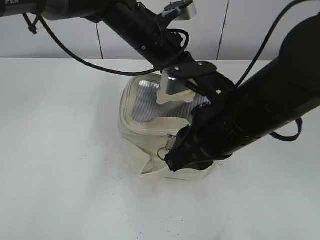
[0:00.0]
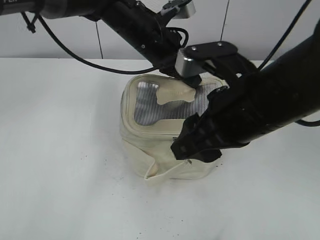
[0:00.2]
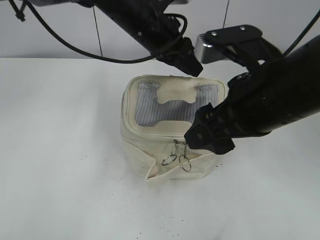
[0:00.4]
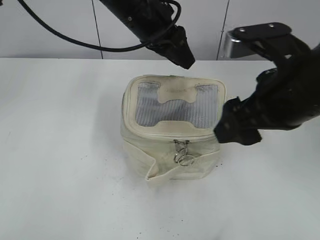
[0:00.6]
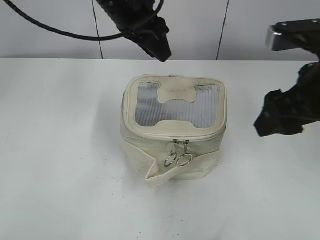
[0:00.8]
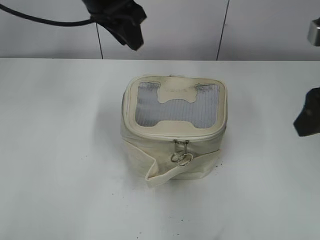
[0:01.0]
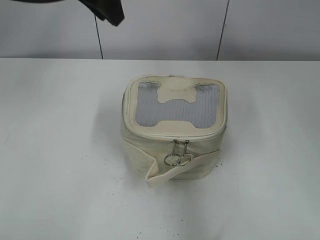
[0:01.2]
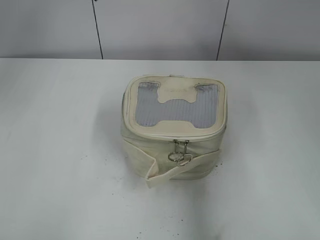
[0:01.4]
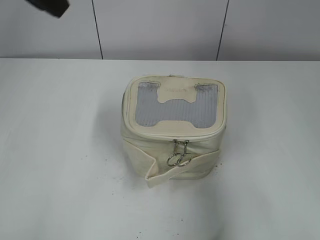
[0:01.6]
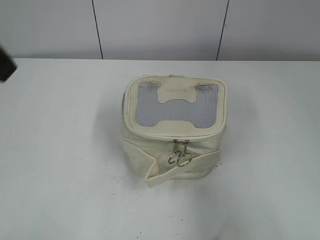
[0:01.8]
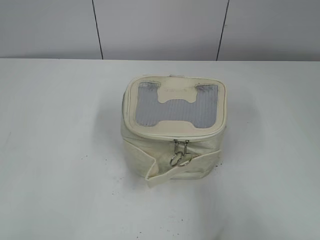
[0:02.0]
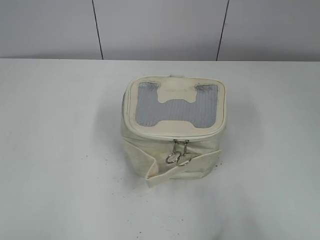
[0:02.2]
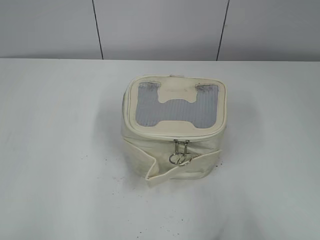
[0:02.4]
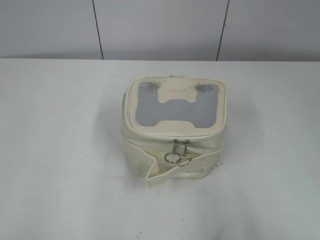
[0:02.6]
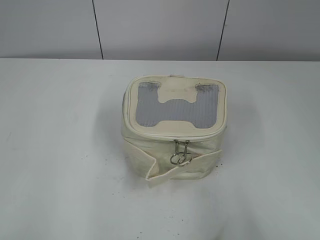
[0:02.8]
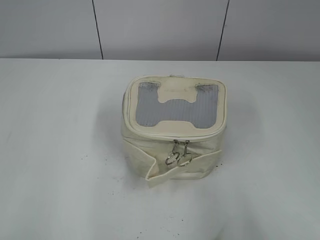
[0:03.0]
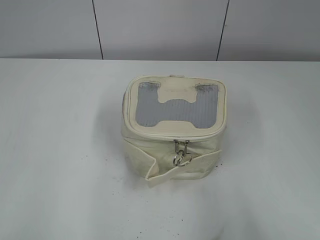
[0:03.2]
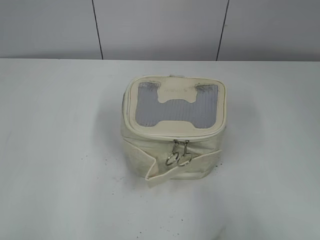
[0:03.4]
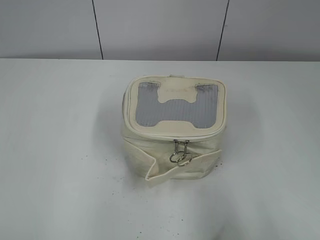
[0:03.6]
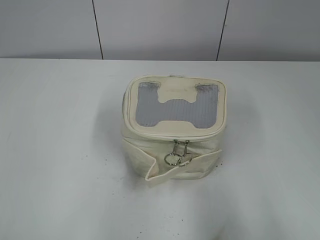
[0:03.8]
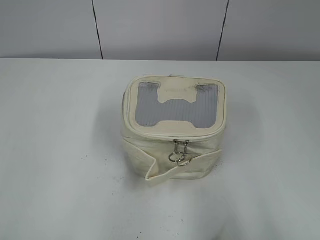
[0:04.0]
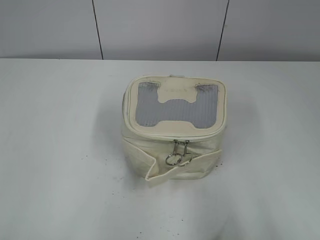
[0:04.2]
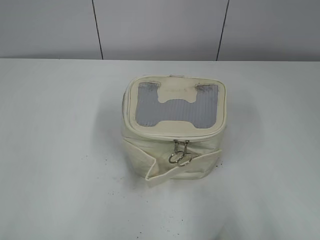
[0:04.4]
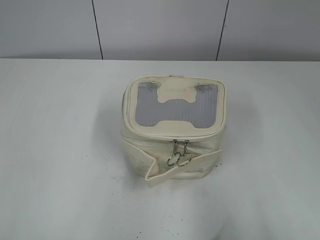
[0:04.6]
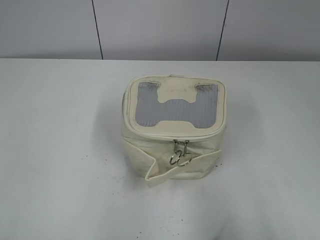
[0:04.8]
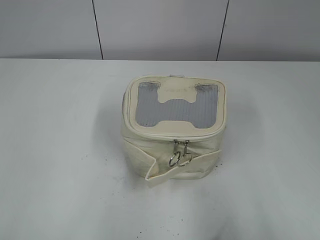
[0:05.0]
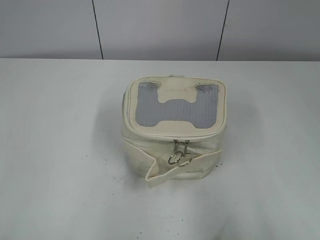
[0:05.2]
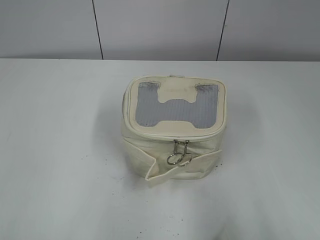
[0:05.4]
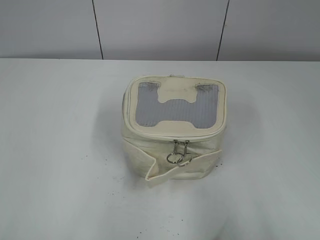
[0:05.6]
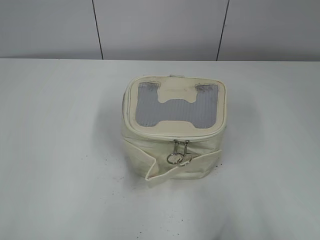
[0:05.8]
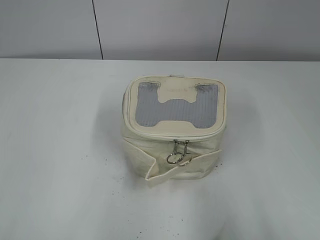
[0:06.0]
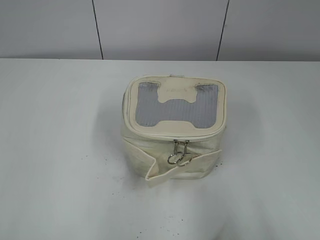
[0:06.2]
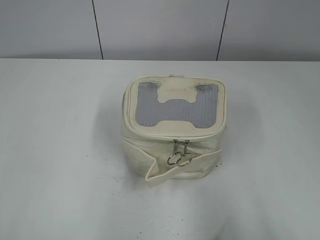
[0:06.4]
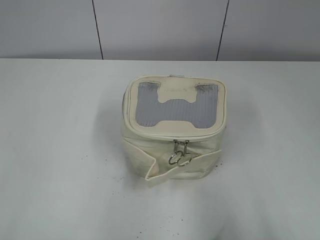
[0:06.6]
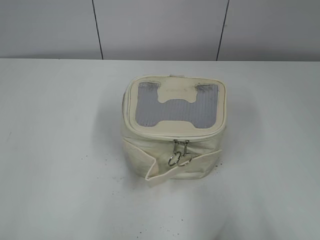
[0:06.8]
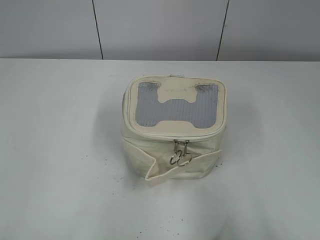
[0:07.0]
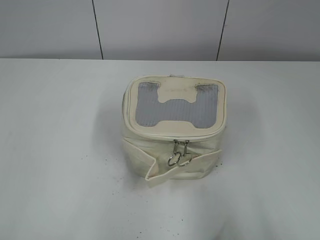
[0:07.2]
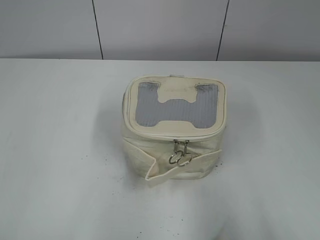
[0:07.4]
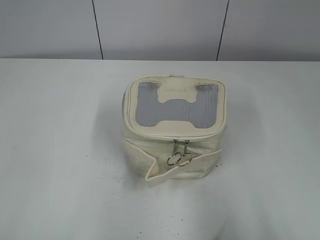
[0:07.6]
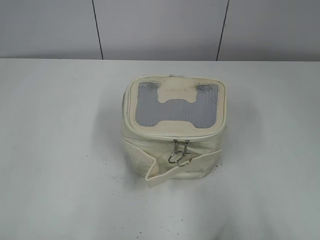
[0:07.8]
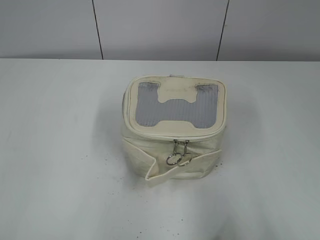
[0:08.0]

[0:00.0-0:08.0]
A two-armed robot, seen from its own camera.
Step, 0:00.4 to 0:00.8: Hold the bag with your left hand.
0:00.0 to 0:01.6: The left gripper shifts approximately 25 cm upward, to the left and backward, and opens, while the right gripper goes approximately 25 cm to the right, backward and upward, and opens up.
0:01.6 to 0:03.2: The left gripper travels backward, to the left and downward by roughly 30 cm, while the right gripper is displaced backward by roughly 10 cm.
0:06.4 to 0:08.0: The two grippers keep their place.

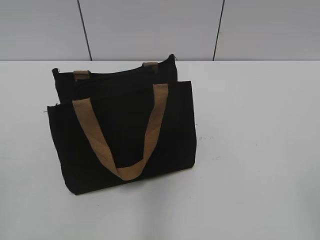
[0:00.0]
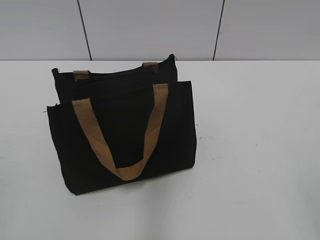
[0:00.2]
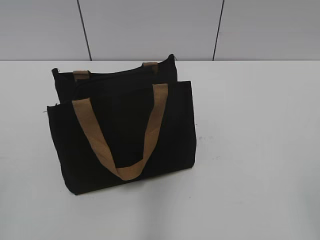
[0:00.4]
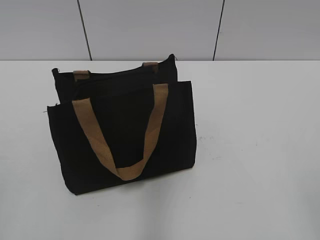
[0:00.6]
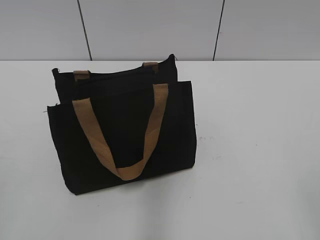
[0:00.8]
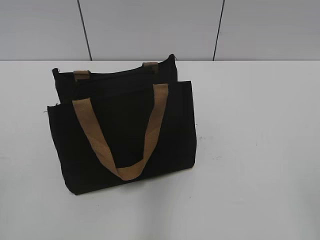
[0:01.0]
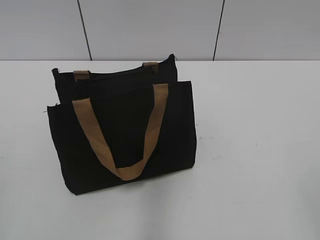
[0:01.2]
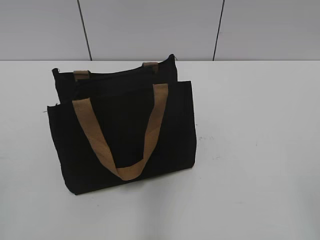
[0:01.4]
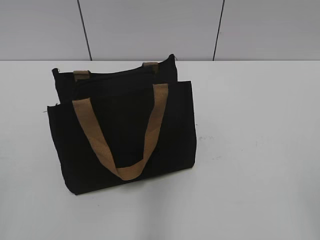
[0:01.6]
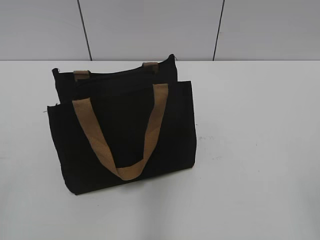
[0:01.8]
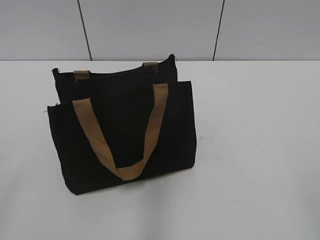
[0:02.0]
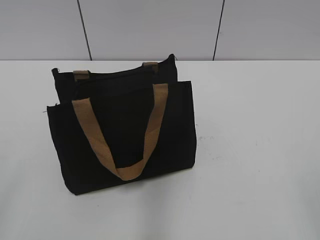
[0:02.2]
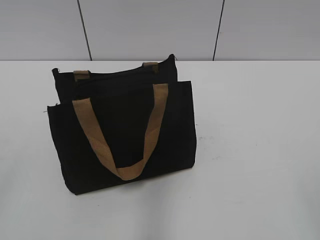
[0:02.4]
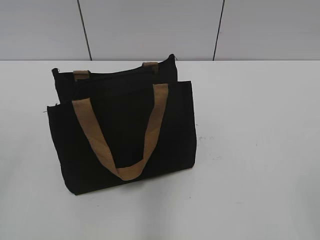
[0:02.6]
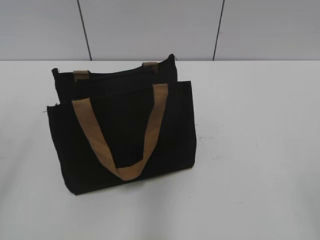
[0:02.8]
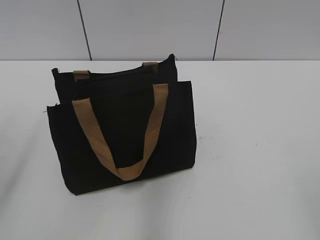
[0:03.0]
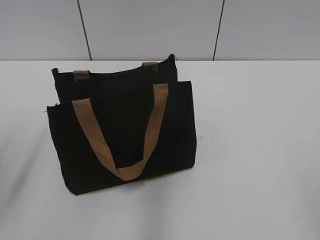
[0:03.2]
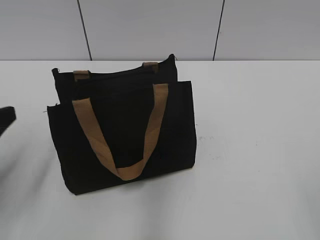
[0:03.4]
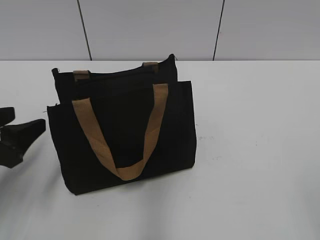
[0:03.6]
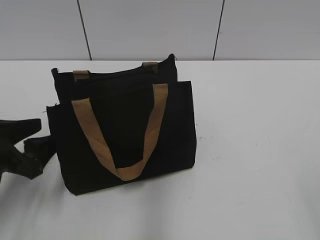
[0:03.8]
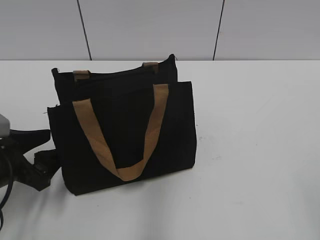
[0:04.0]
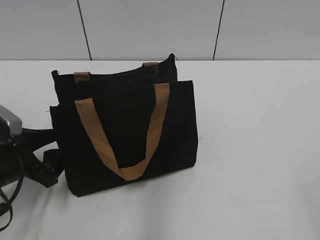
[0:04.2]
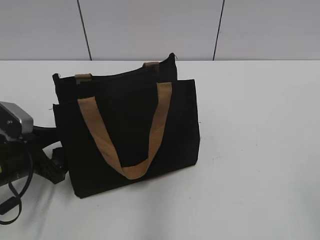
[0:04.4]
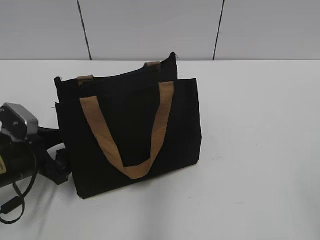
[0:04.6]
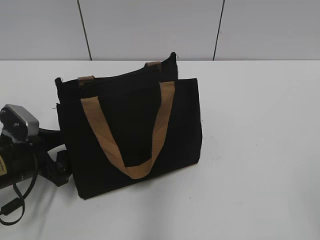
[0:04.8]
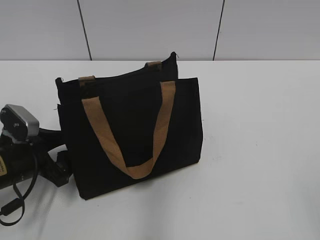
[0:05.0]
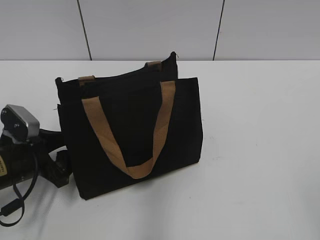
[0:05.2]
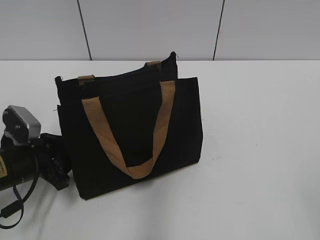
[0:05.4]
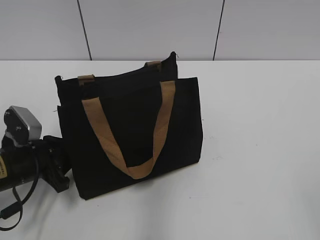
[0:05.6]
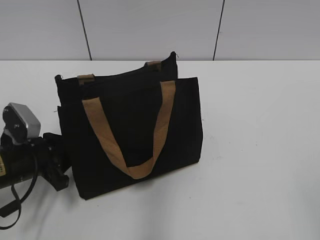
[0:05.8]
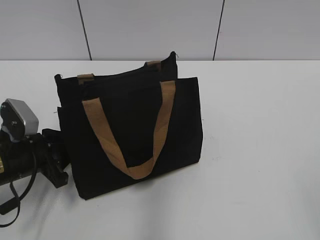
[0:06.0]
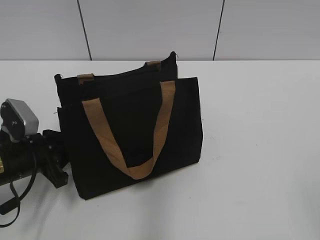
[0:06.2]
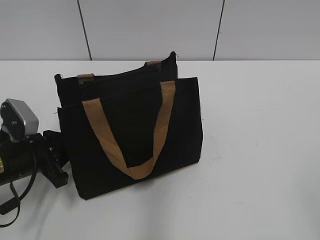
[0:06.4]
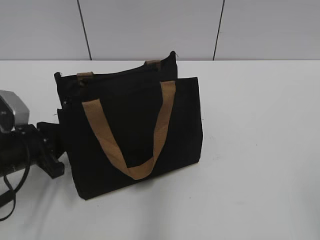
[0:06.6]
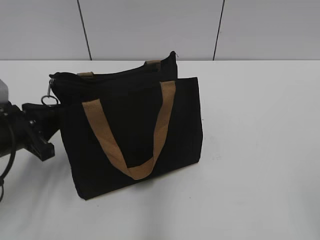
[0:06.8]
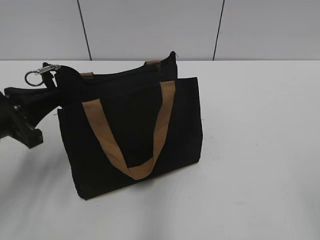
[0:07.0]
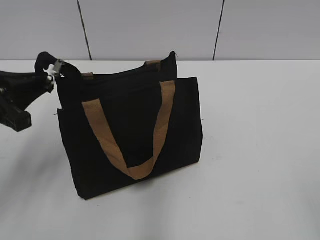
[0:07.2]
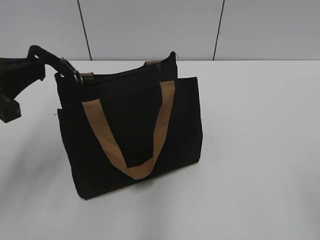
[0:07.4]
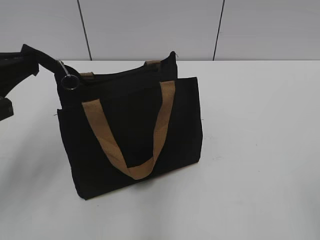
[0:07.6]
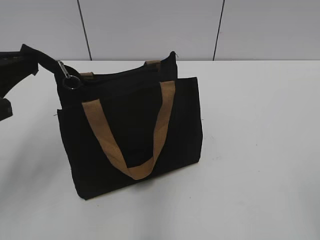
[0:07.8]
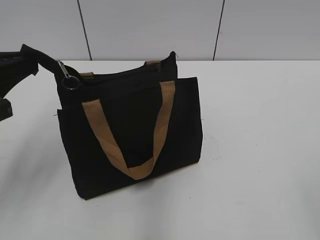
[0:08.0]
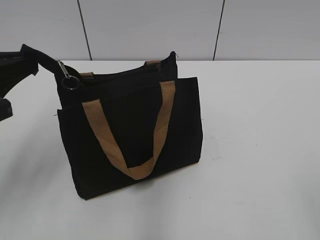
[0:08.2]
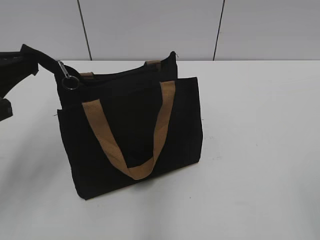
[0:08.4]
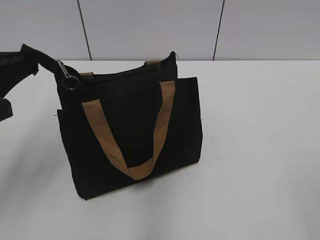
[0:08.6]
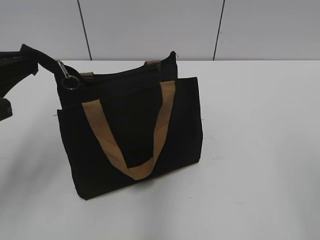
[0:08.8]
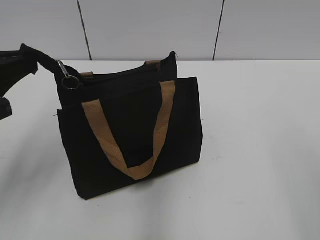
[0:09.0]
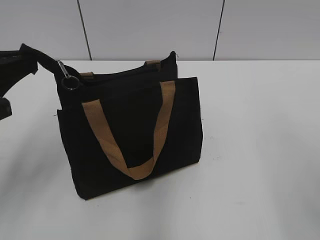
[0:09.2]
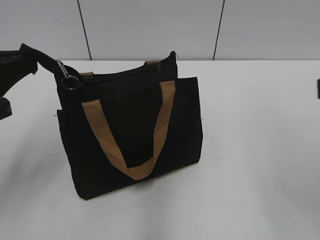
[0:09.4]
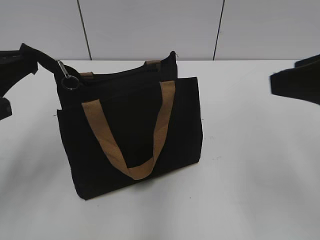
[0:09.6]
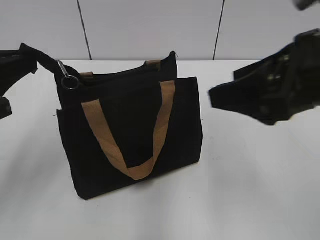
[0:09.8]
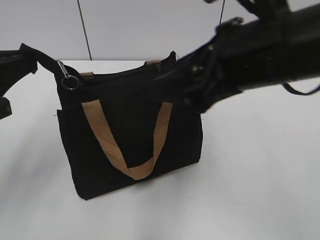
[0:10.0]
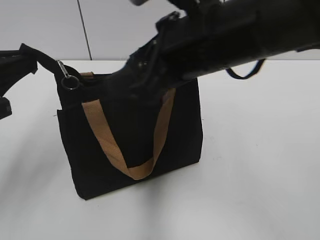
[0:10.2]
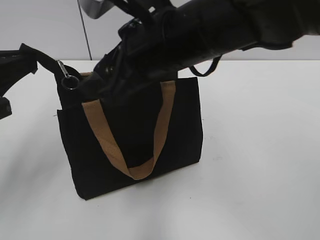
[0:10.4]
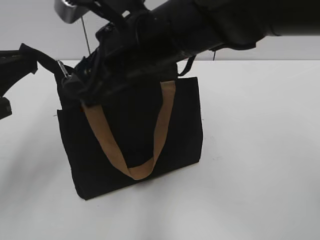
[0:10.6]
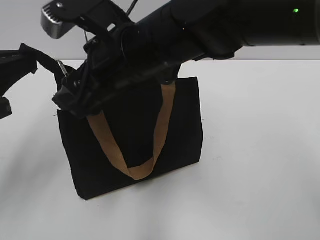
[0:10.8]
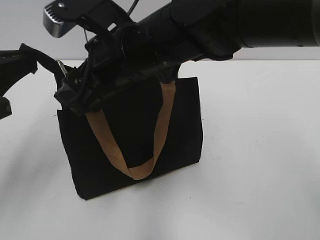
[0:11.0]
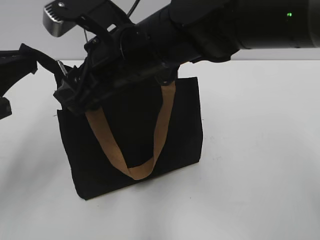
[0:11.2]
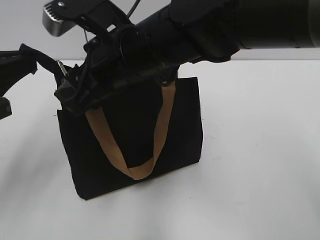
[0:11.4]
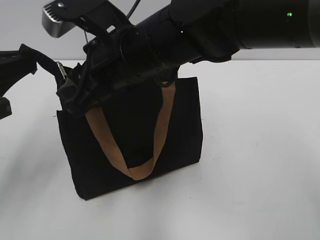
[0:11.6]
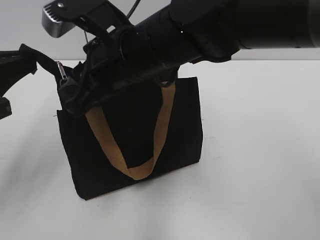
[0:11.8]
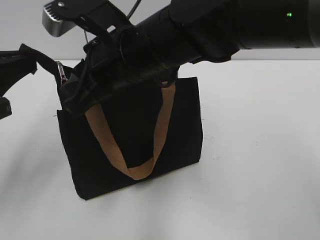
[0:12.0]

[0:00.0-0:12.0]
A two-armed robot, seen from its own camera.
0:03.0 to 0:04.4: The left gripper is displaced downward and forward by approximately 25 cm.
0:04.4 to 0:06.0: The left gripper closes its fingers.
0:06.0 to 0:07.6: The left gripper is displaced upward by approximately 15 cm.
0:09.0 to 0:10.4: The right gripper shifts about 30 cm to the left and forward.
0:10.4 to 0:12.0: The right gripper heads to the left, covering approximately 5 cm, and closes up.

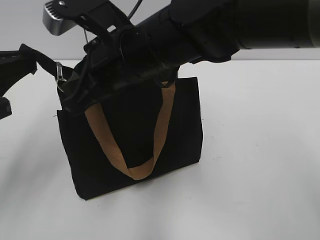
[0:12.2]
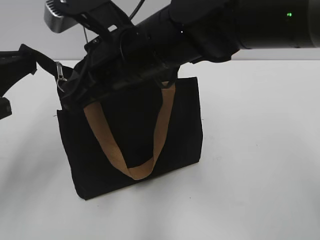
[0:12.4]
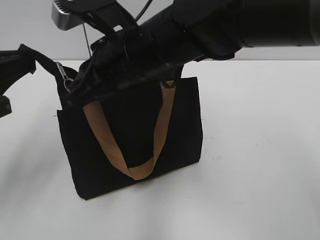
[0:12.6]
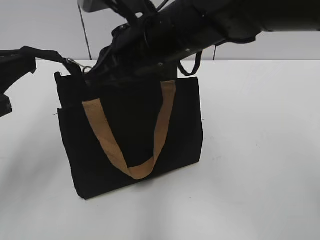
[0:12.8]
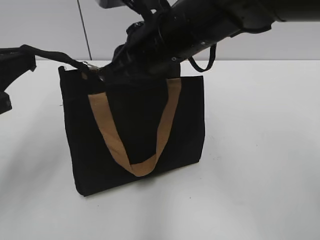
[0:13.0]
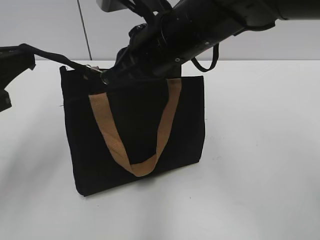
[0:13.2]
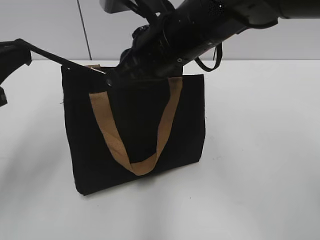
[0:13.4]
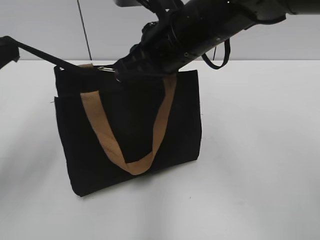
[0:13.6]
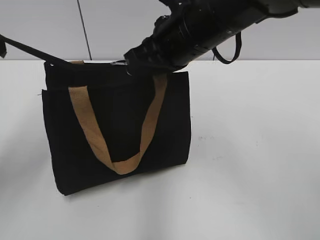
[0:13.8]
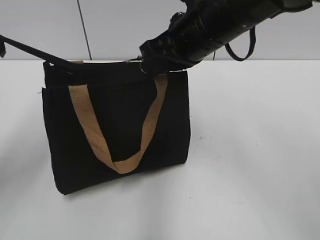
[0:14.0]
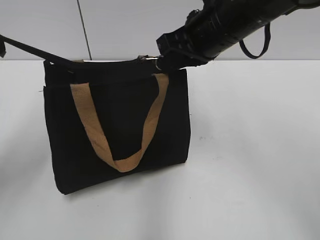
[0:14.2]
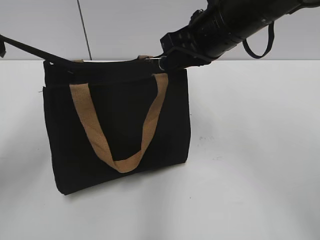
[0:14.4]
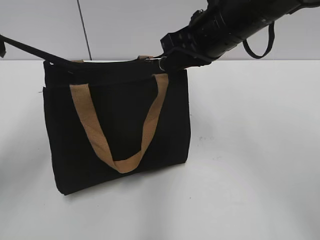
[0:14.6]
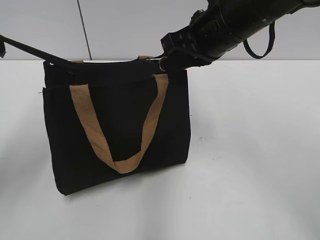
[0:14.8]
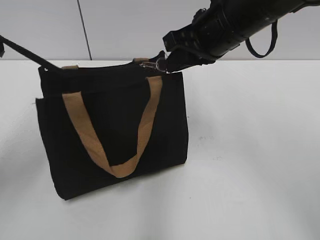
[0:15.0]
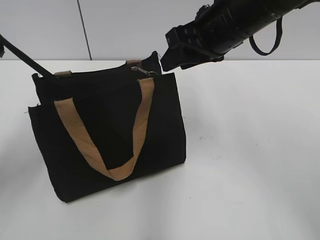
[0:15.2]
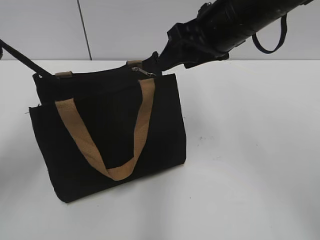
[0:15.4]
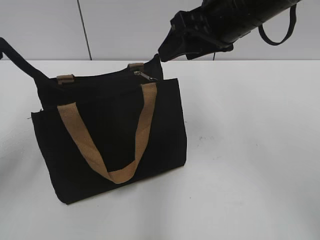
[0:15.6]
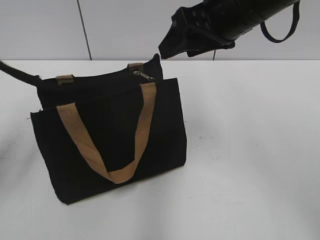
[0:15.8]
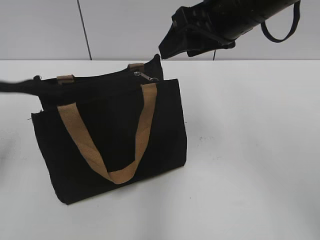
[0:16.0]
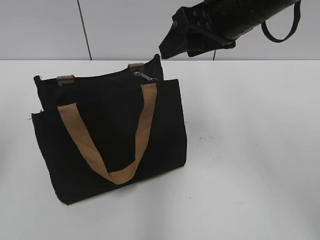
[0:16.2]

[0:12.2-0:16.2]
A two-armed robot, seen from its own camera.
Step, 0:12.2 to 0:14.8: Zip up the bag with your right hand.
Step, 0:15.2 to 0:16.0: Grab the zipper with your left hand.
0:12.2 to 0:13.6: The right gripper shifts roughly 5 cm to the right.
0:13.6 to 0:14.8: The right gripper travels to the right by approximately 5 cm.
0:14.8 to 0:16.2: The right gripper opens up. Meanwhile the left gripper shifts by about 5 cm, and opens.
